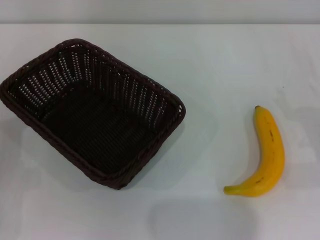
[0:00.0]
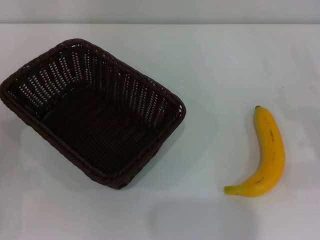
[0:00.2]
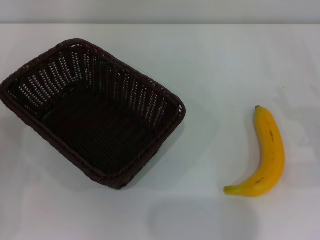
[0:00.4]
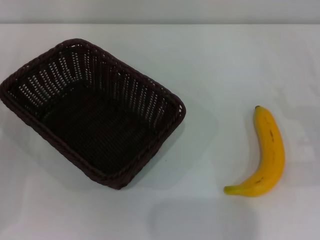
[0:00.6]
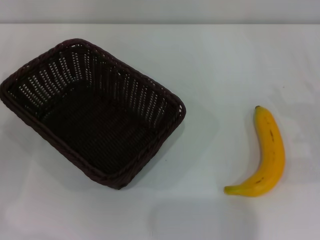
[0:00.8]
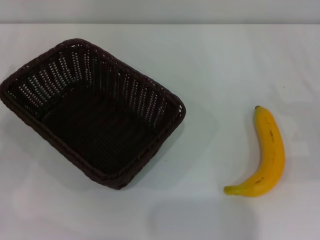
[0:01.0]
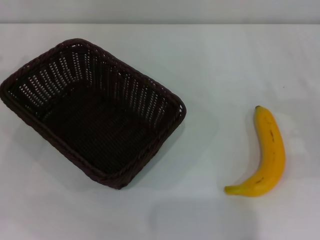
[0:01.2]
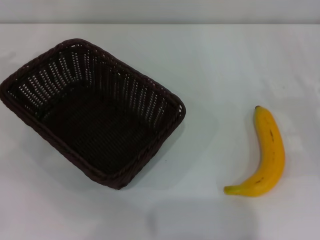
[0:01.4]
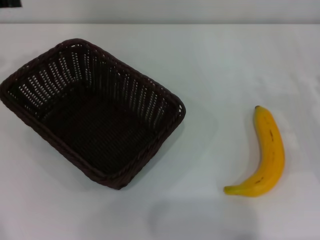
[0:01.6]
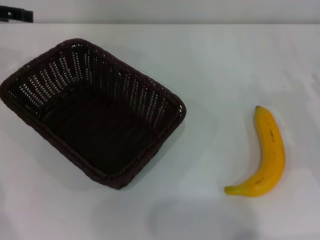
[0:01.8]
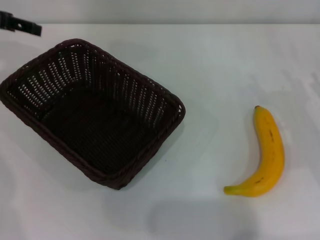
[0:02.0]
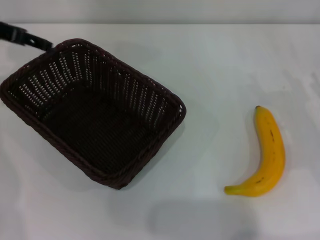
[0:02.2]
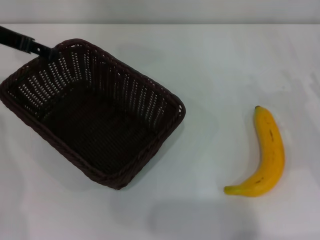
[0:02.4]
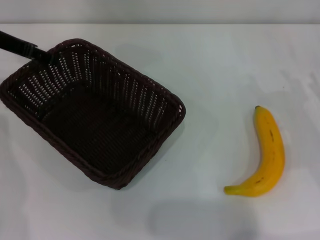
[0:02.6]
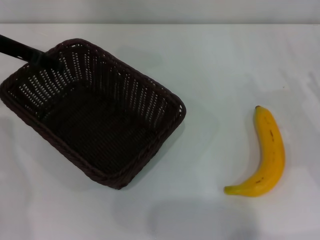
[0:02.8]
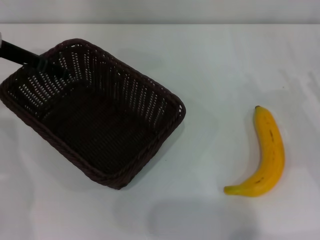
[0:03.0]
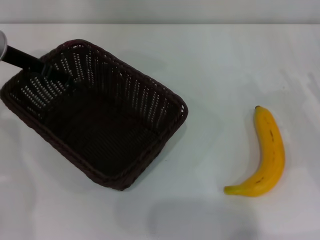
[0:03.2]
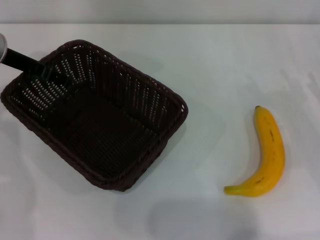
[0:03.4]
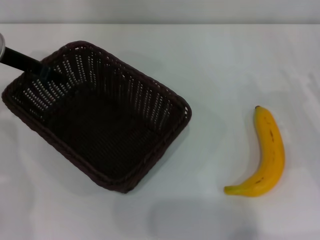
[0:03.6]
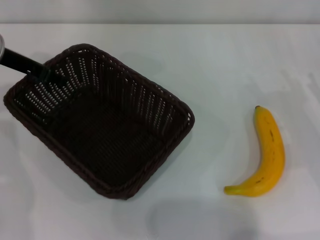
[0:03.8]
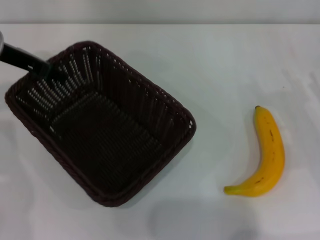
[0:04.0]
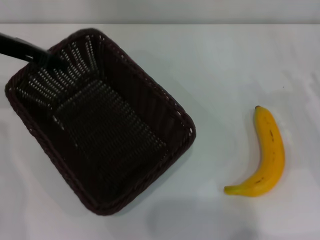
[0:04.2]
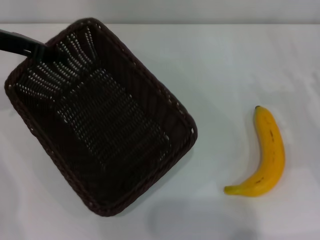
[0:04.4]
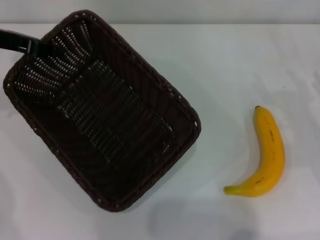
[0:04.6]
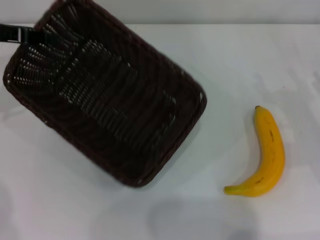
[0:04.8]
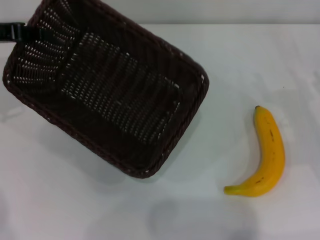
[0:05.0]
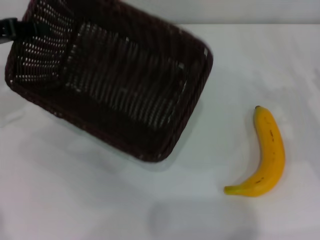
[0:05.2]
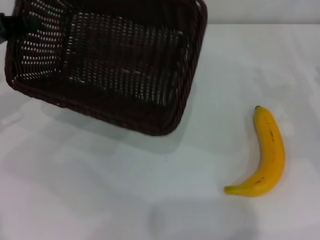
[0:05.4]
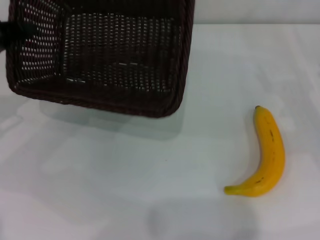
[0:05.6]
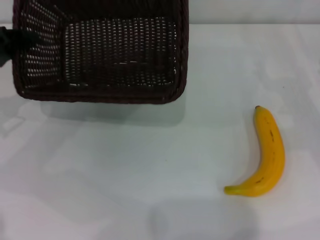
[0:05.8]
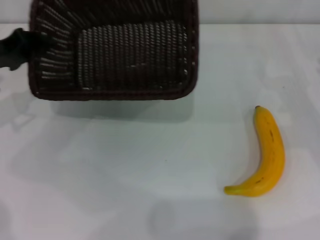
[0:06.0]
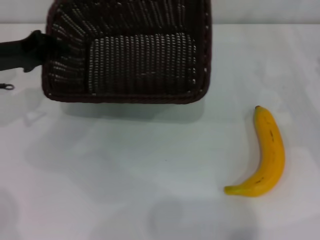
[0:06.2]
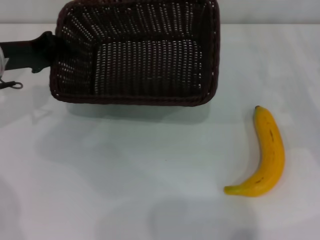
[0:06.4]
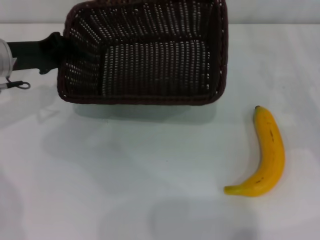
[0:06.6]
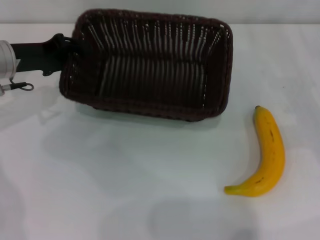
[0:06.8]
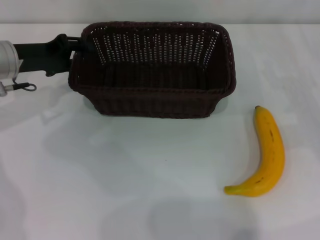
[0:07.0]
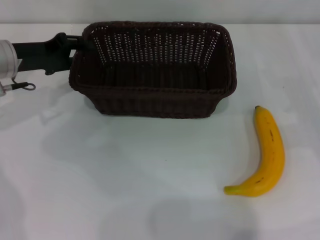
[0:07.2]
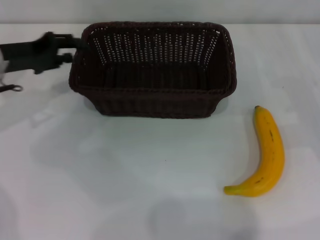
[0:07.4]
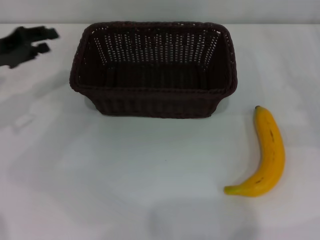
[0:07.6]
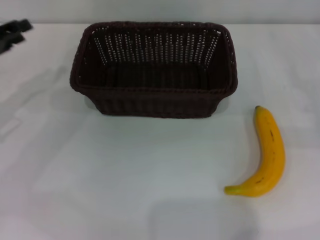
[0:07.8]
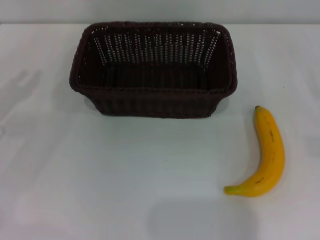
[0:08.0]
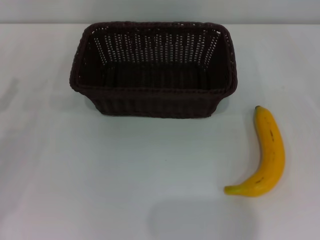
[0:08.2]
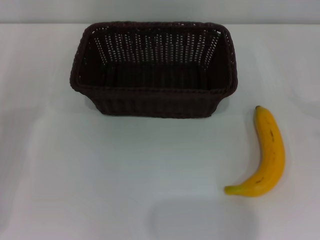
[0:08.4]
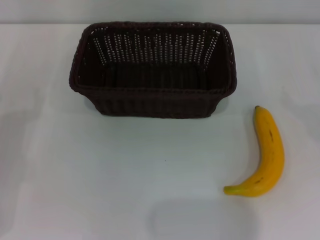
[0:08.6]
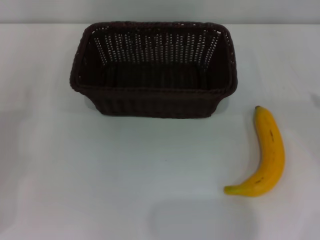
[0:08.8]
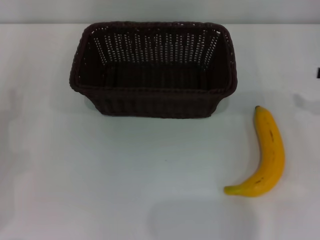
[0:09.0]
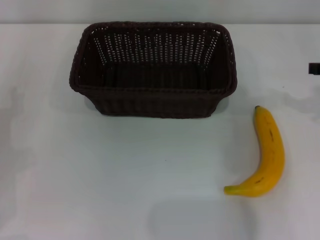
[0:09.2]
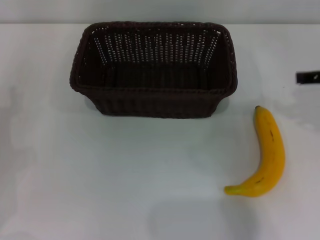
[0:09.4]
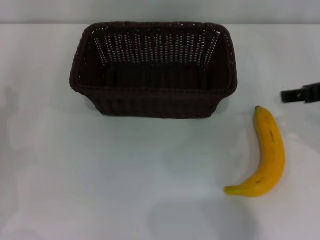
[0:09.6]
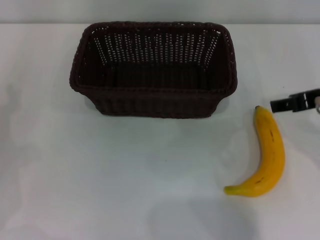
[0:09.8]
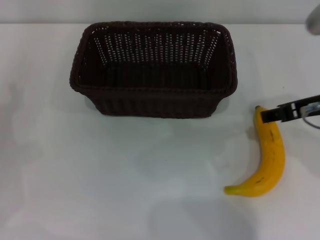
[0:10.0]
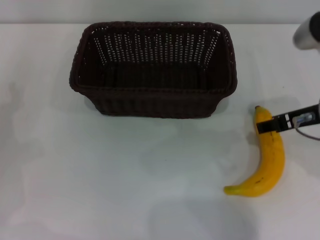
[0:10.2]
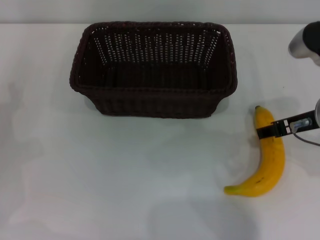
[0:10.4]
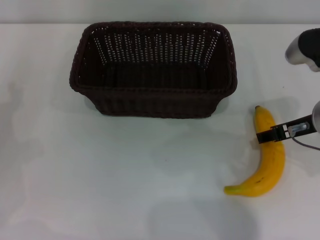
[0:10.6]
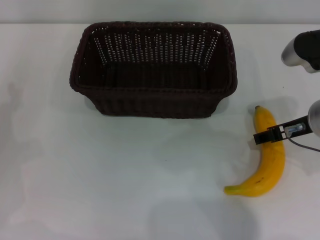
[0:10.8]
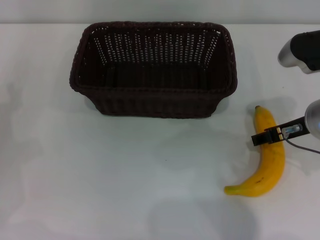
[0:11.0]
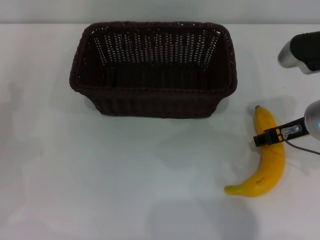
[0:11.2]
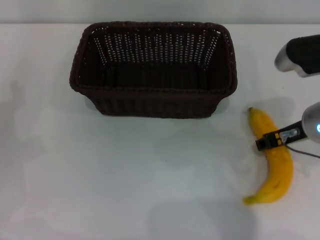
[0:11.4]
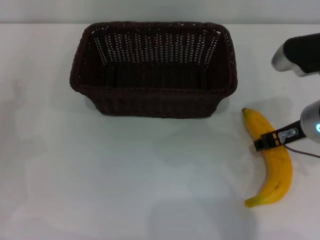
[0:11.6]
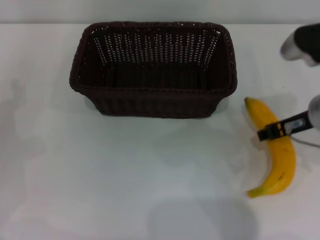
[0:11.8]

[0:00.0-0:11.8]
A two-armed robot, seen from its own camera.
Step, 0:00.0 to 0:05.0: Pick up the dark basket with the left gripper.
Step, 0:05.2 to 0:07.4: Place the dark basket in the center of view with the left gripper.
Step, 0:07.8 to 0:11.8: Pick up the banana with the right gripper.
0:00.0 to 0:01.4: The left gripper heads upward and forward, covering about 20 cm.
0:01.4 to 0:03.0: The left gripper shifts about 10 cm to the right.
0:03.0 to 0:04.4: The left gripper closes.
0:04.4 to 0:06.0: The left gripper shifts approximately 5 cm downward.
0:06.0 to 0:07.4: The left gripper opens.
0:07.4 to 0:08.8: The left gripper moves backward, downward and to the left, about 15 cm, and opens.
0:08.8 to 0:10.4: The right gripper travels to the left by roughly 20 cm.
0:10.4 to 0:11.8: The right gripper closes.

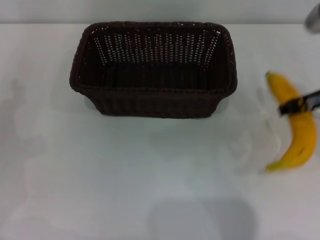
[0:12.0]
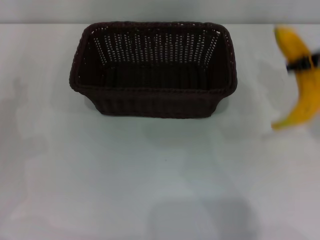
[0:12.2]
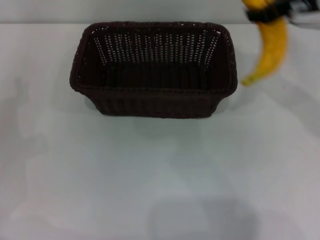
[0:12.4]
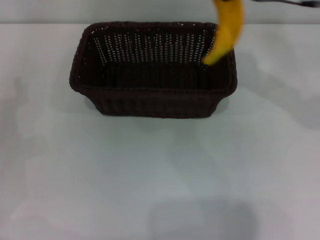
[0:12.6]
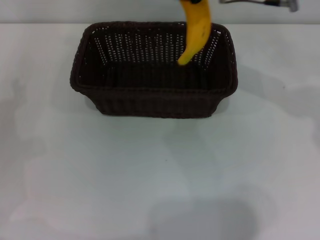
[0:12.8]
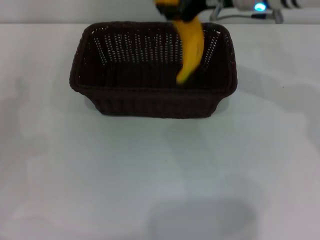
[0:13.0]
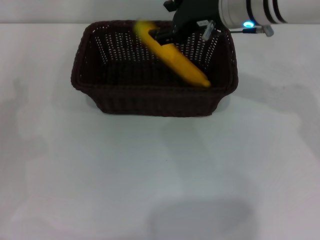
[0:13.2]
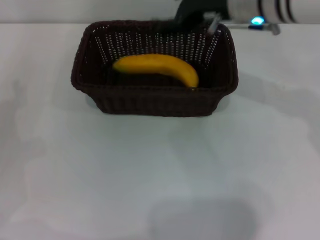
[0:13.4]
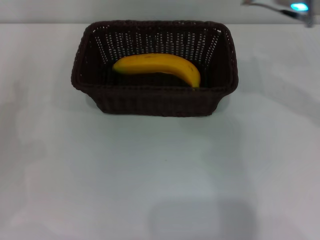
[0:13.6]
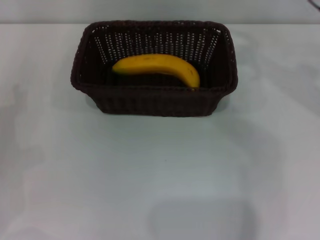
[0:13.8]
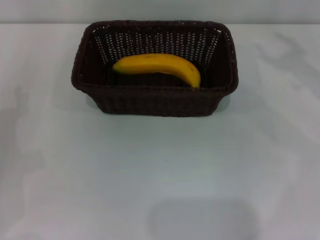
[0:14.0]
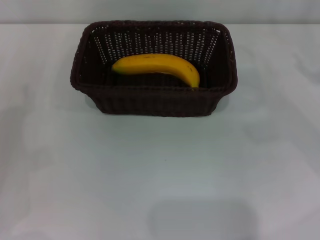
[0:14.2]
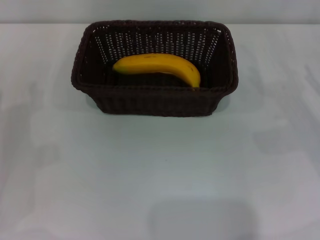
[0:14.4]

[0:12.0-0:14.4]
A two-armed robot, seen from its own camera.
Step, 0:12.0 to 0:13.2: Place the banana into the dark basket with the right gripper.
0:12.0 to 0:13.2: The right gripper heads to the left and forward, covering some 15 cm.
0:13.2 to 0:14.4: The right gripper is displaced to the right, downward and backward by approximately 30 cm, and opens its fingers.
